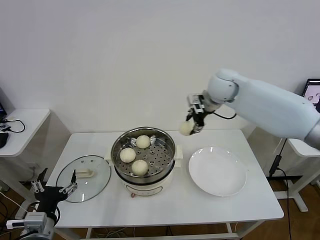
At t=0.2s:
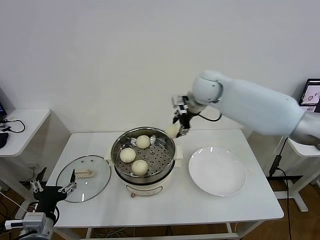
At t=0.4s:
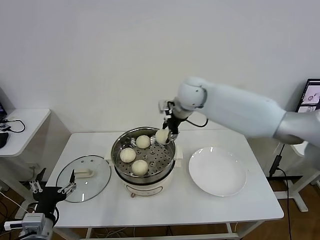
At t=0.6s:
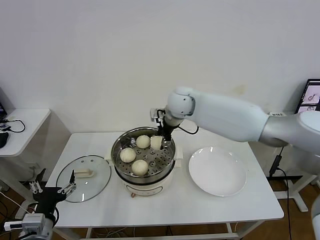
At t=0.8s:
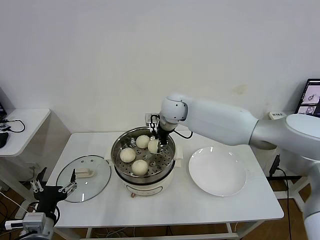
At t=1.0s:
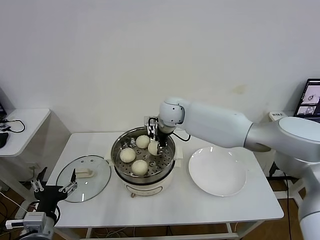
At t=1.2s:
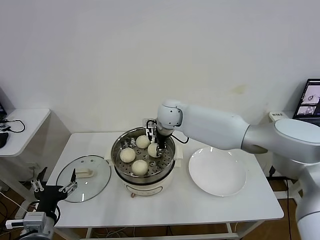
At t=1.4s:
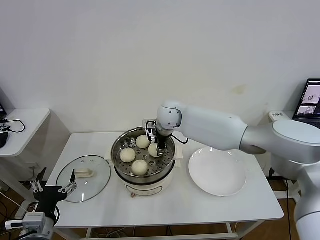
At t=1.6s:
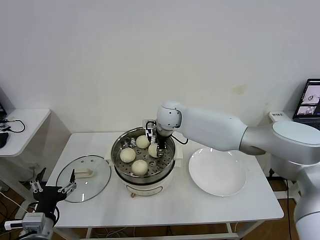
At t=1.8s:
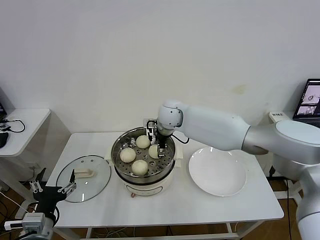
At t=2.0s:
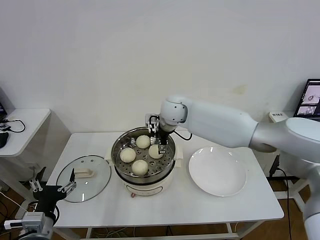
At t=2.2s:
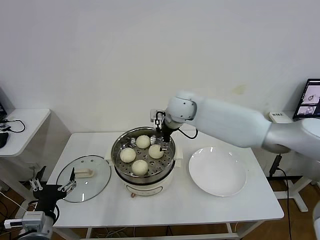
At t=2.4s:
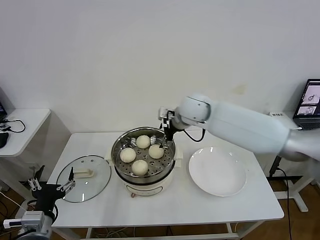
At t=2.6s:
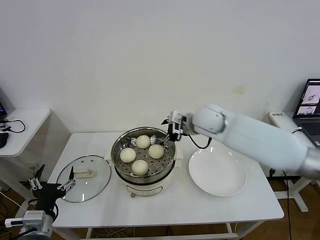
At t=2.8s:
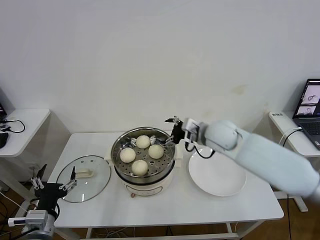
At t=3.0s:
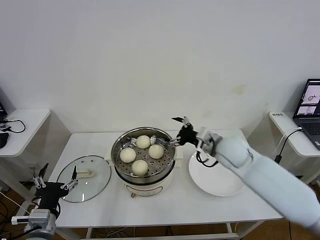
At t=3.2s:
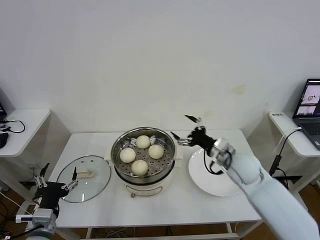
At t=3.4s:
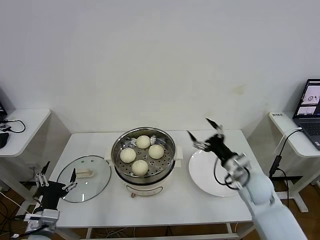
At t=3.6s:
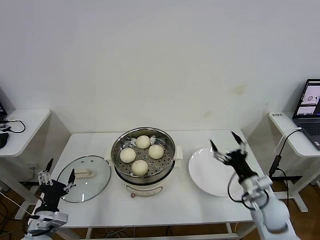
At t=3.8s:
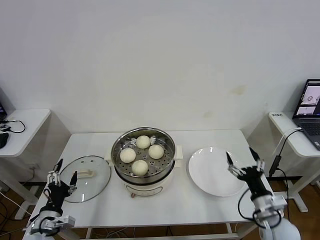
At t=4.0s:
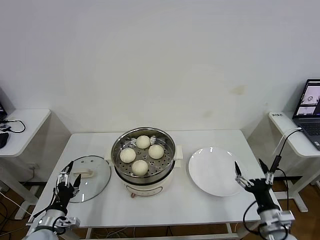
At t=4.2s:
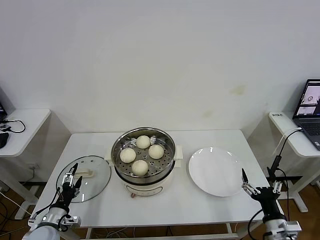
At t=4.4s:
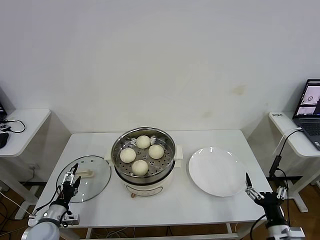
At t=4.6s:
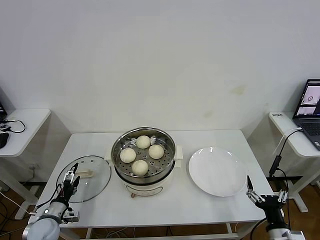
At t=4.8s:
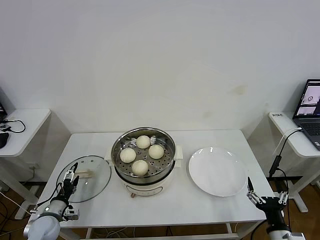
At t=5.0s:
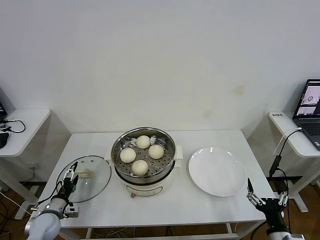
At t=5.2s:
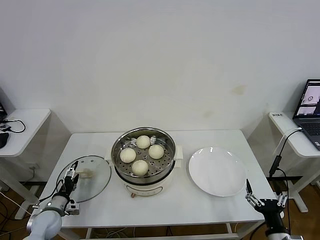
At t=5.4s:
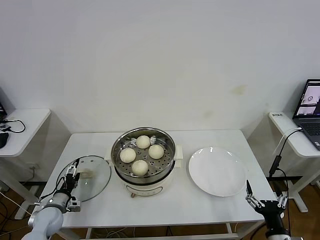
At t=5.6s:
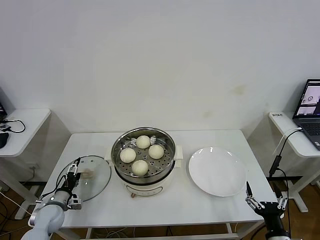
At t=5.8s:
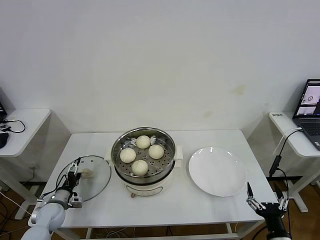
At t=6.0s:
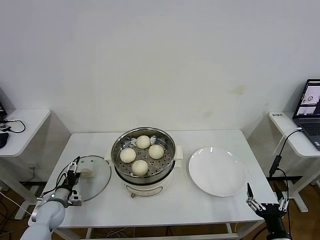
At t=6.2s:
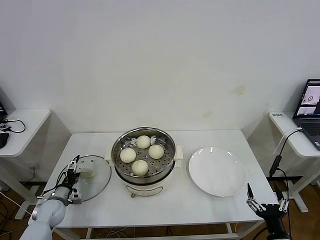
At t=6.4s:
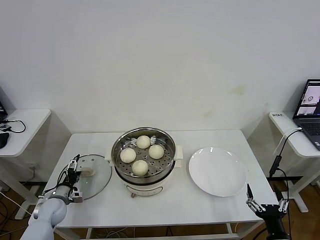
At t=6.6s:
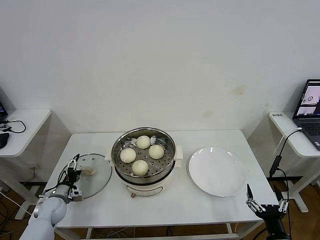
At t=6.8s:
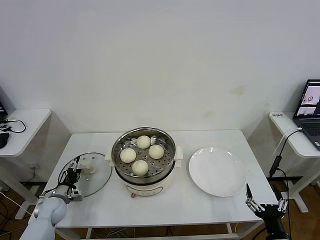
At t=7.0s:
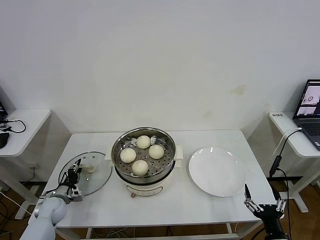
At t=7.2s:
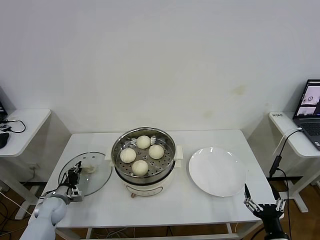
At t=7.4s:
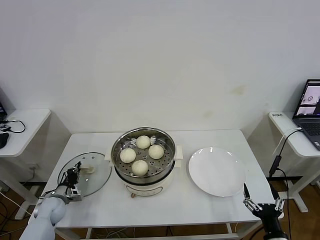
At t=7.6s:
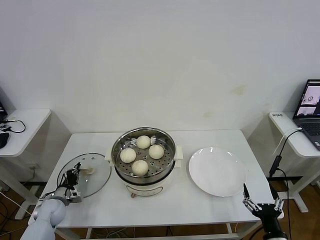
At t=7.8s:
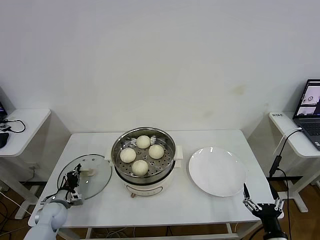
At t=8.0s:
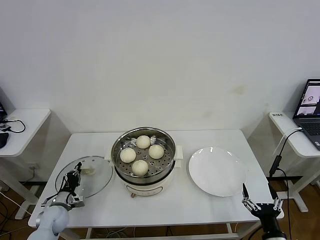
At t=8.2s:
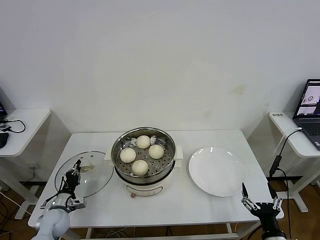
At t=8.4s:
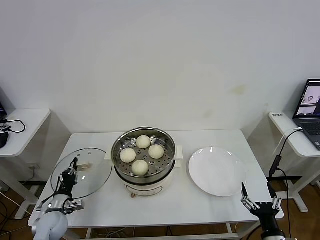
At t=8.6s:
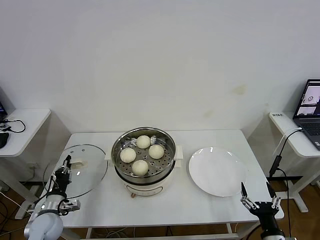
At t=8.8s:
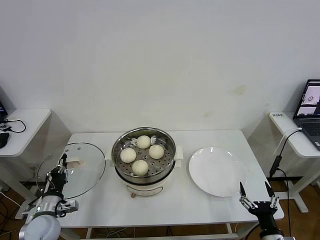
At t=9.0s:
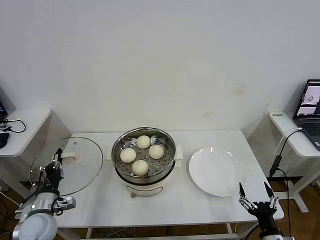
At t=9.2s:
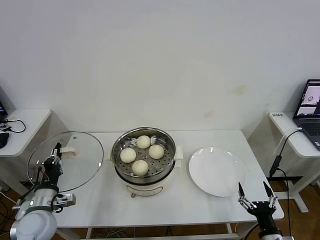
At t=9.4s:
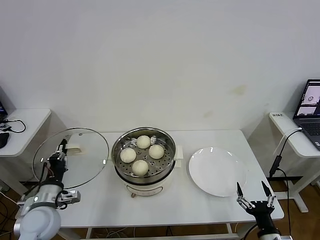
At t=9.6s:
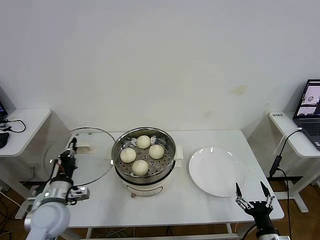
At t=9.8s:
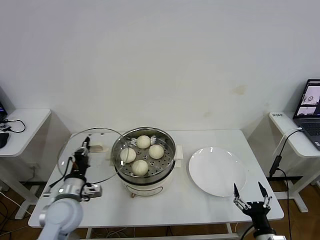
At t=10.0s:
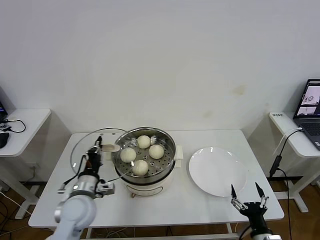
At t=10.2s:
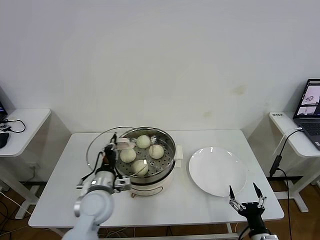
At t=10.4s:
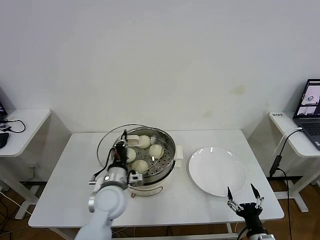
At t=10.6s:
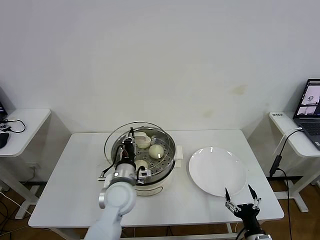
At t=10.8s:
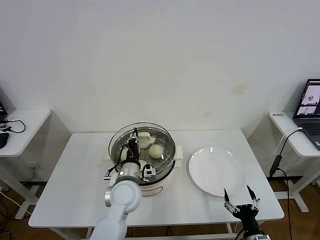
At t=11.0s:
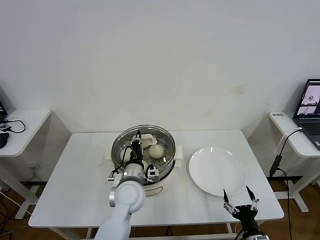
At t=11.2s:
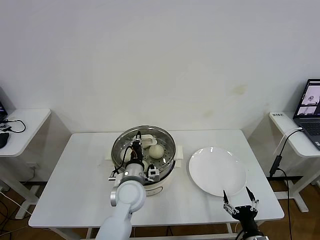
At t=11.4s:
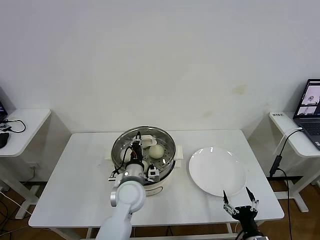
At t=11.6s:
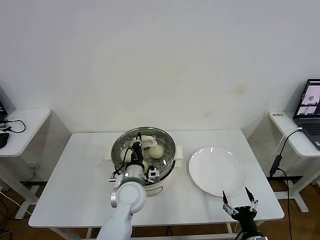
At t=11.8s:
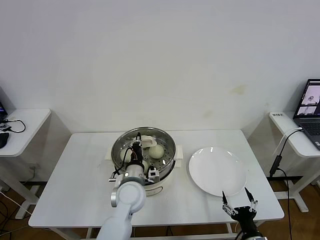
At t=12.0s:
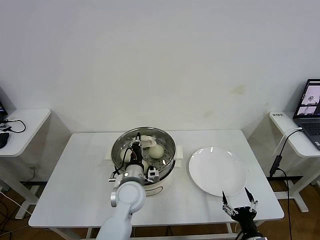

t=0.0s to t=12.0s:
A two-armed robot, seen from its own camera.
Task of the whole recording: take steamed baozi put them in steamer then cover it.
Step, t=0.0s to t=1.8s: Place the baozi on the steamer with right gripper.
Step, t=2.0s to t=7.4s: Grasp the pot lid with left gripper.
t=0.0s to t=1.6s: The right gripper travels to the left and downward by approximately 20 cm.
t=1.6s to t=3.0s: The right gripper travels to the right and backward by some 25 cm, and opens.
t=3.0s to t=4.4s: The left gripper goes approximately 15 cm downward, to the left and forward, while the right gripper goes roughly 35 cm backward, downward and to the right.
t=4.4s to t=6.0s: The left gripper heads forward, covering about 10 cm.
t=6.0s to t=7.6s: The left gripper closes up.
t=7.6s to t=9.0s: The left gripper is displaced upward, backward and to the right by approximately 20 cm.
t=9.0s to t=10.4s: The left gripper travels to the right by some 20 cm.
t=10.4s to t=12.0s: The left gripper heads to the right, covering about 5 cm.

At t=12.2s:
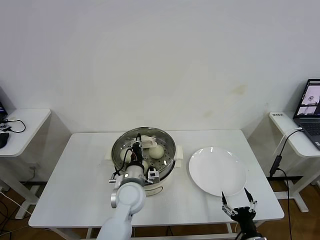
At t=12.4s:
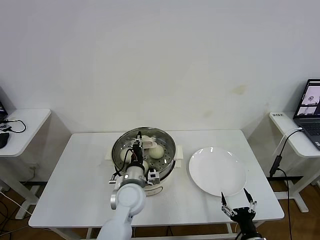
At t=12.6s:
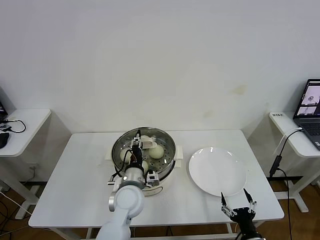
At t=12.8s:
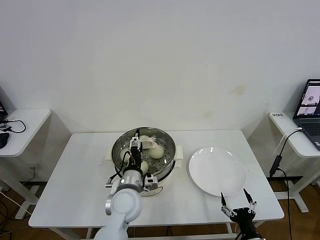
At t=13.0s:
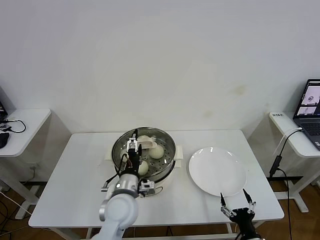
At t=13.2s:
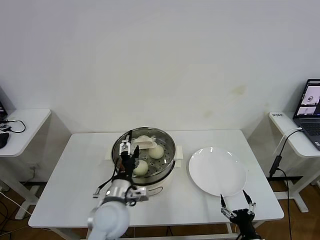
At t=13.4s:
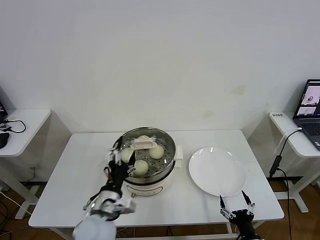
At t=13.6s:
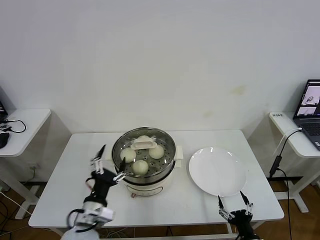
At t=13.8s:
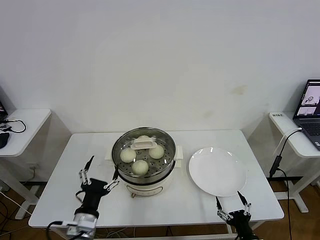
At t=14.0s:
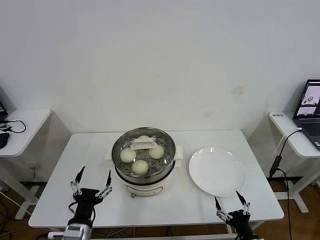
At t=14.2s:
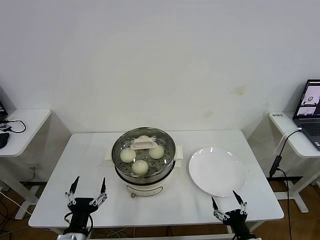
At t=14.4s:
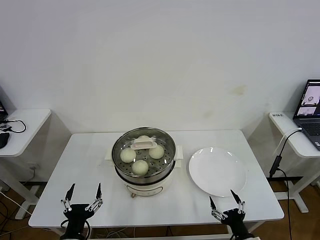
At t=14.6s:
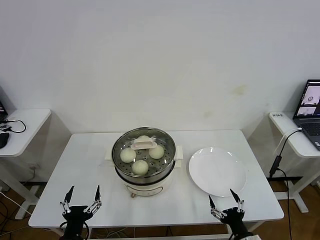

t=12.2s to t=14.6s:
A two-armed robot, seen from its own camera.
Task of the whole recording: take steamed baozi put them in steamer then cover it.
t=12.2s to t=13.4s: The left gripper goes approximately 10 cm backward and to the left, and opens up.
t=13.4s to t=14.6s: The left gripper travels backward, to the left and downward by approximately 20 cm.
